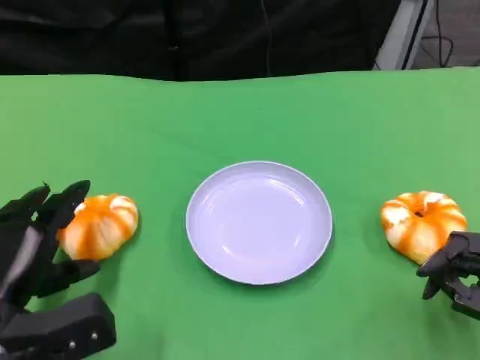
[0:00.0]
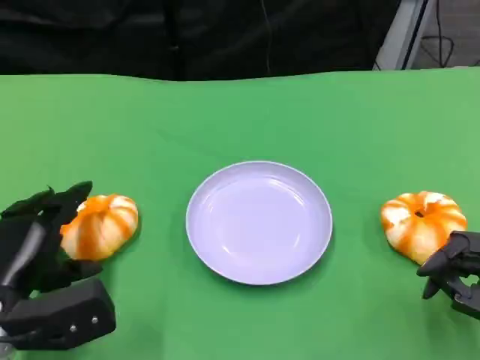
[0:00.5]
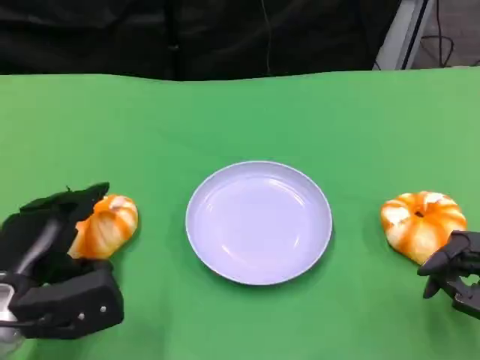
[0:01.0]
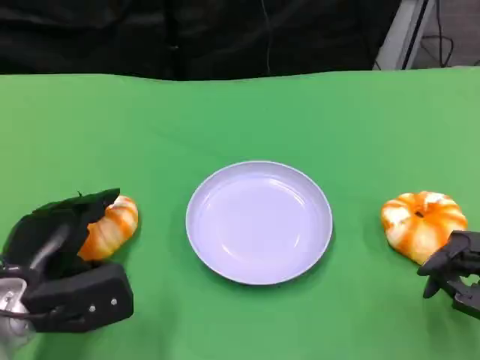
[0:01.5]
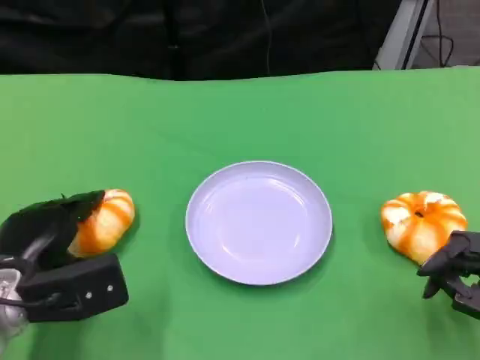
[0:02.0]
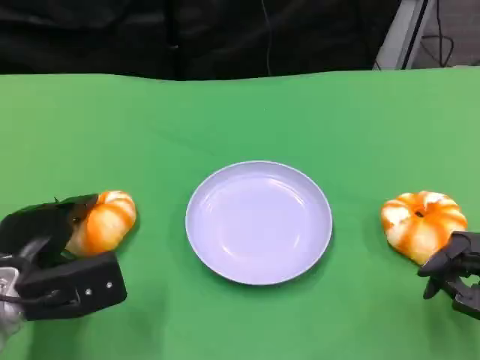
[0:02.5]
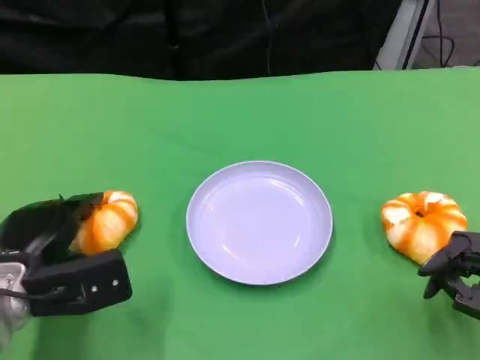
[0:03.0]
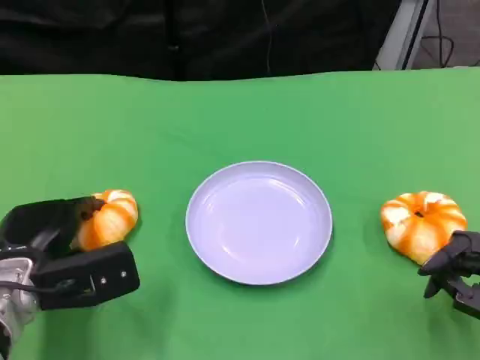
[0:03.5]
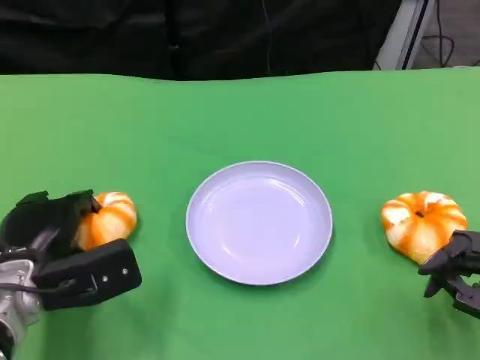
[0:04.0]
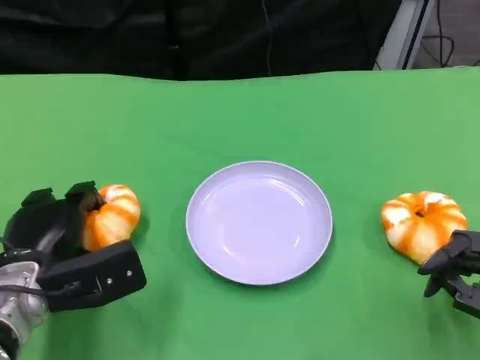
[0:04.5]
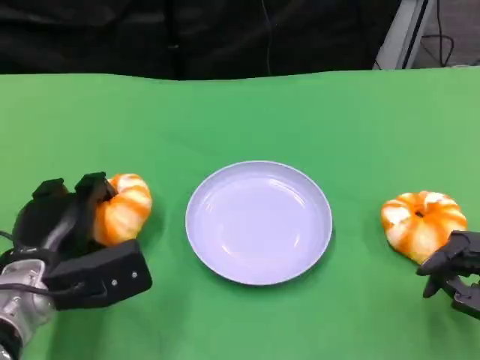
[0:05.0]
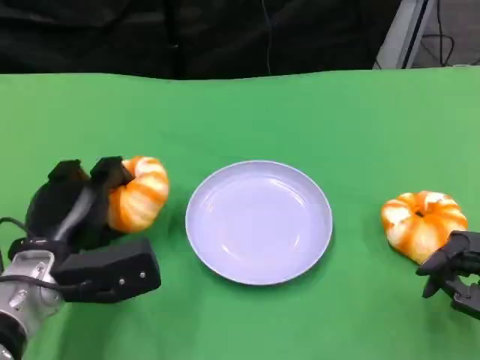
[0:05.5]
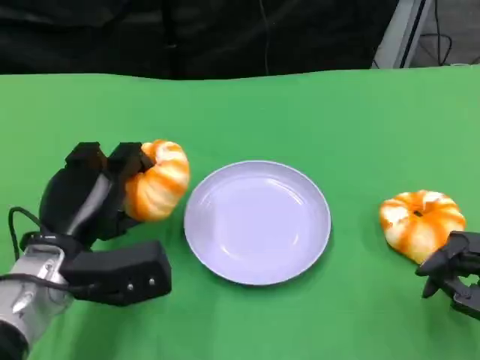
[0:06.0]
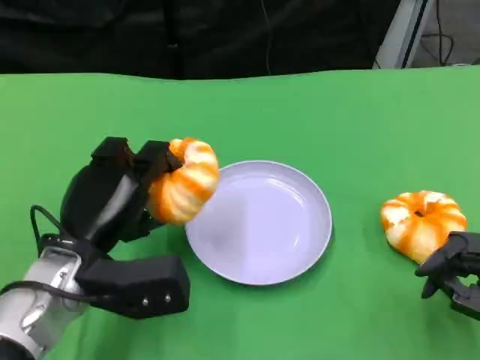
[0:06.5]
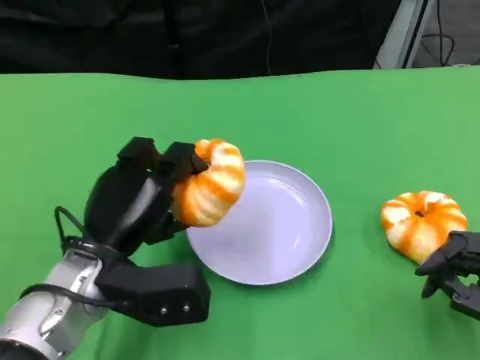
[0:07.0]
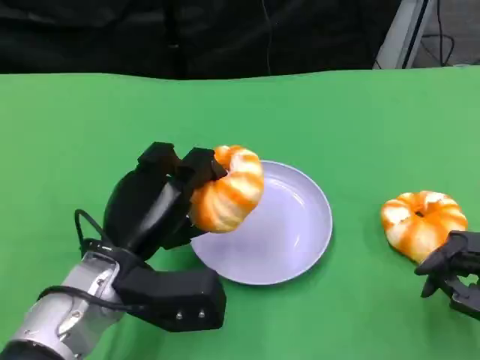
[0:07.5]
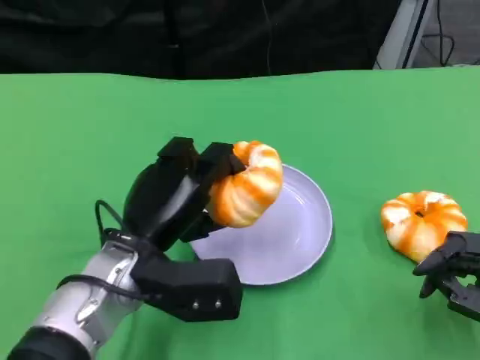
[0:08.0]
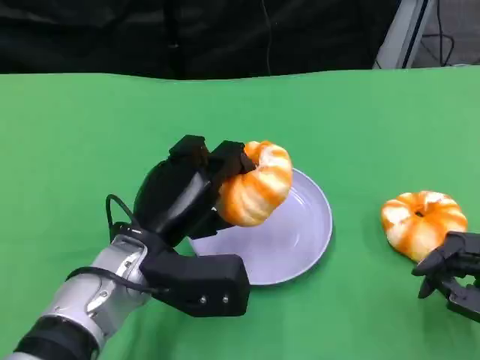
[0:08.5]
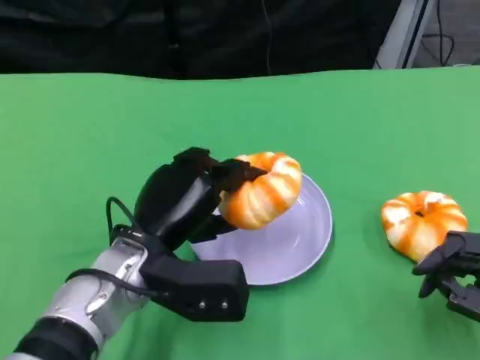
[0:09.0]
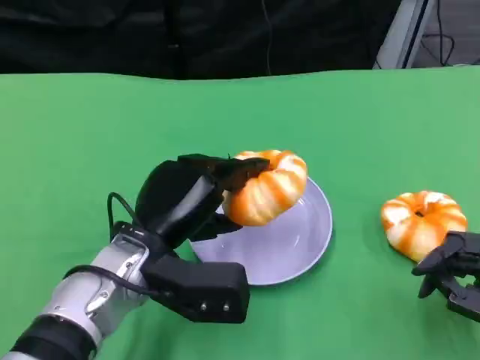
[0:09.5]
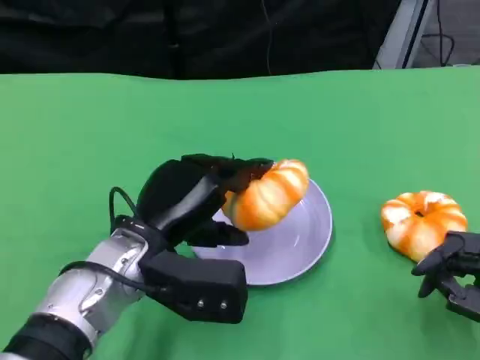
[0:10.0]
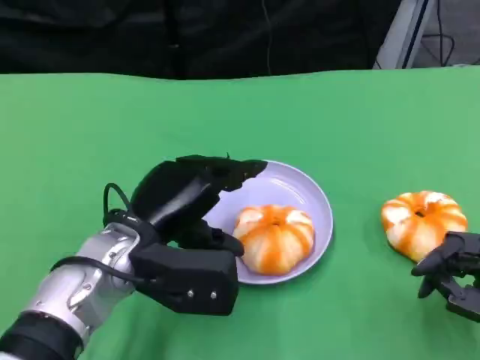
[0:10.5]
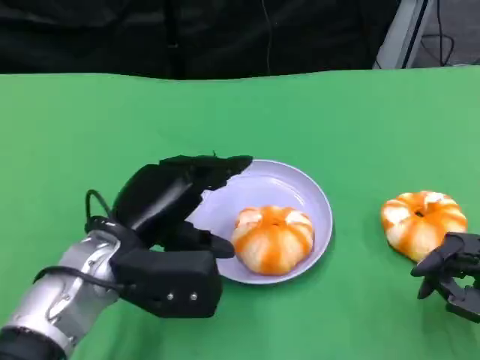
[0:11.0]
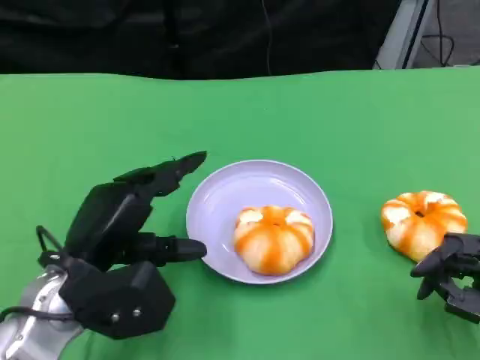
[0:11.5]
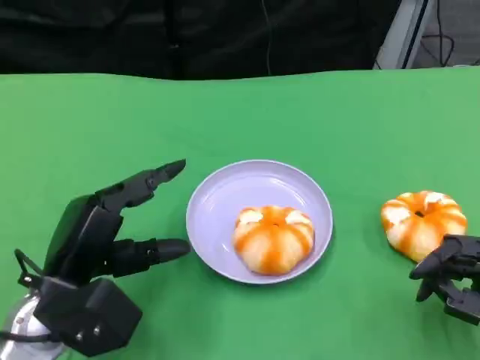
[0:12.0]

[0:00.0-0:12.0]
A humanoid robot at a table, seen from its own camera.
Task of the whole recording: Grasp the bread from the table and place it into the plate.
0:00.0 to 0:02.0: There are only small adjustments of the hands.
0:02.0 to 0:04.0: The hands stay close to where they were, moving slightly.
0:06.0 to 0:08.0: The left hand goes some 5 cm to the right.
0:08.0 to 0:10.0: The hands stay close to where they were, moving slightly.
0:10.0 to 0:12.0: The left hand shifts some 10 cm to the left.

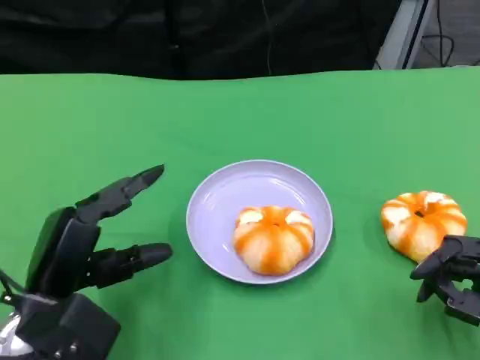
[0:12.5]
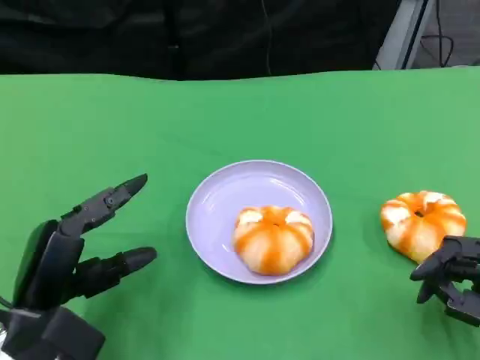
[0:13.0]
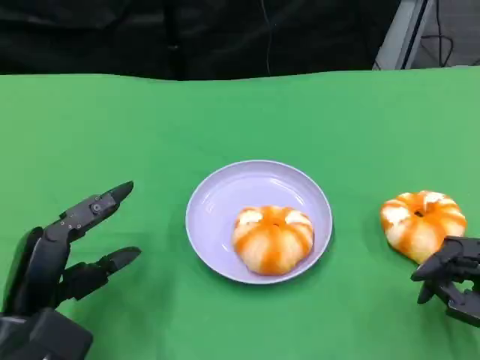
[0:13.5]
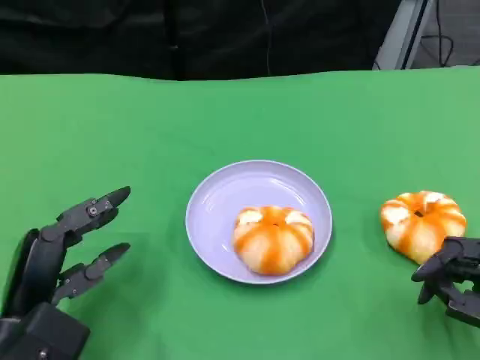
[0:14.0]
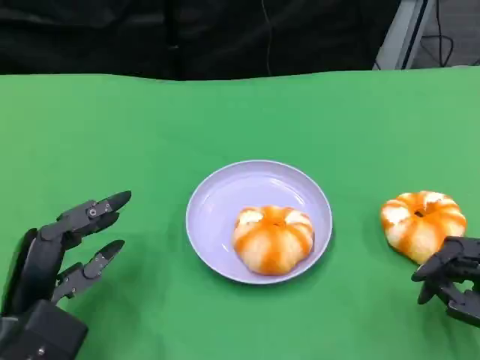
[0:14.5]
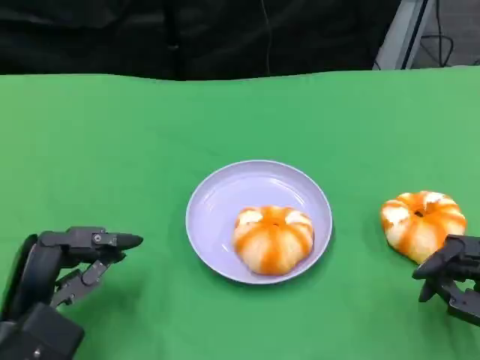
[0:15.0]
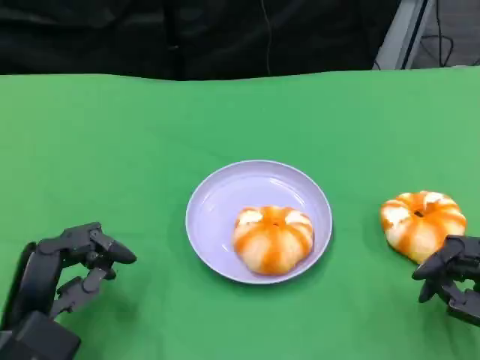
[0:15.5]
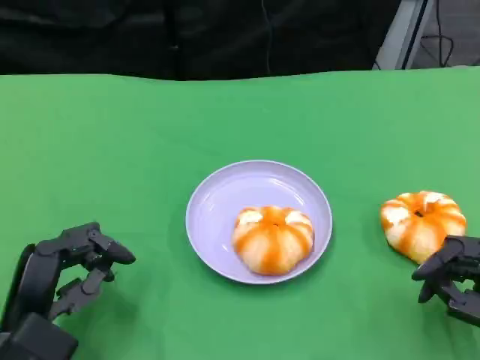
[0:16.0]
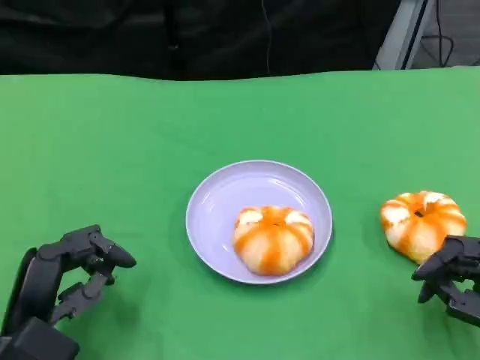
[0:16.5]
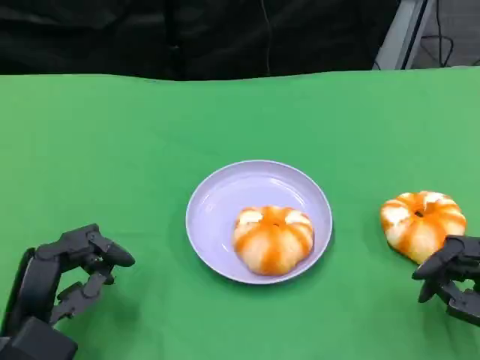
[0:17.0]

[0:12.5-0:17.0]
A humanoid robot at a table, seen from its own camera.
Task of the whole recording: Grasp the bread from the table and place it into the plate.
0:12.5 to 0:17.0: The hands move only a little.

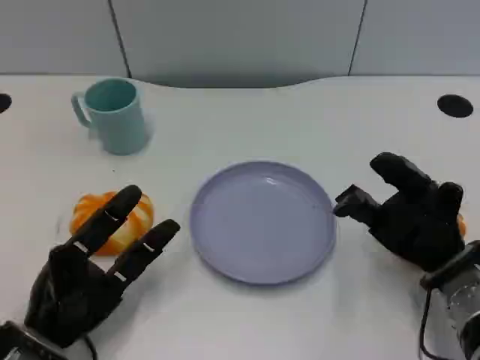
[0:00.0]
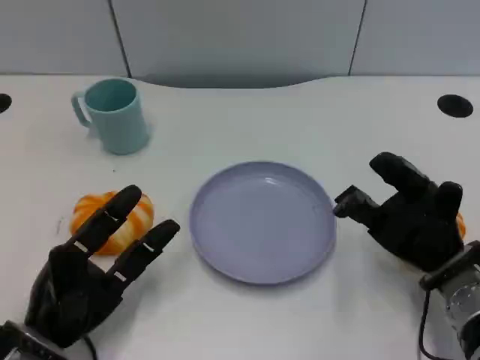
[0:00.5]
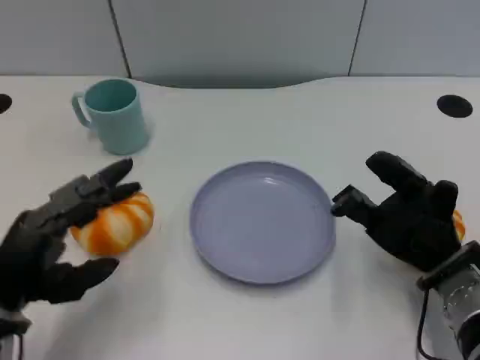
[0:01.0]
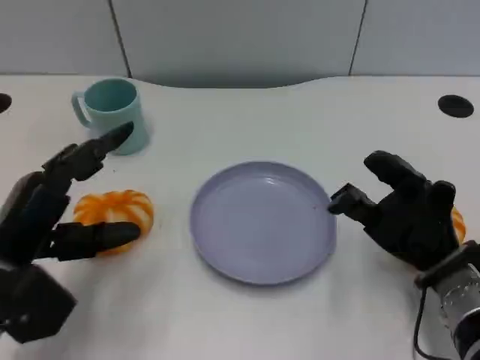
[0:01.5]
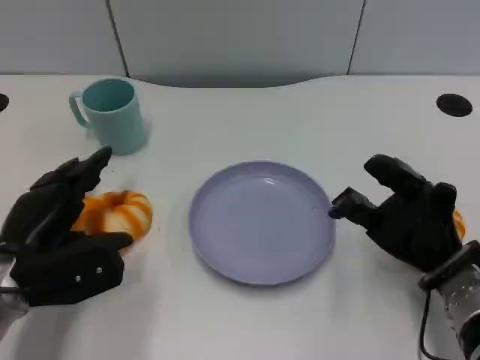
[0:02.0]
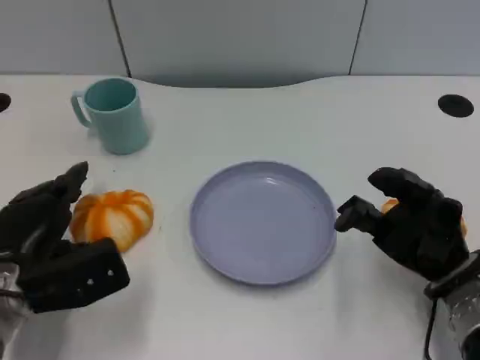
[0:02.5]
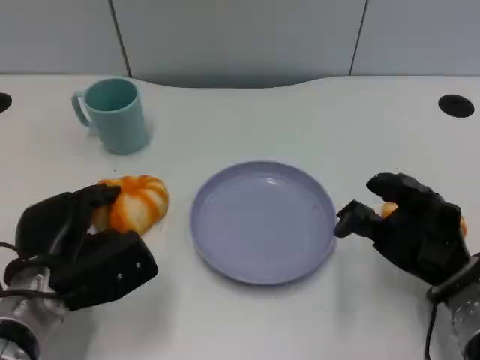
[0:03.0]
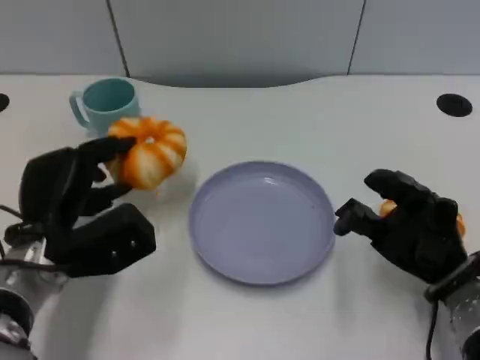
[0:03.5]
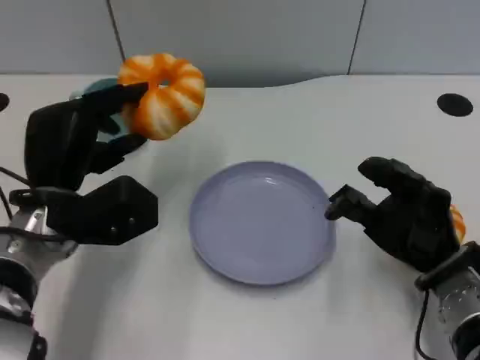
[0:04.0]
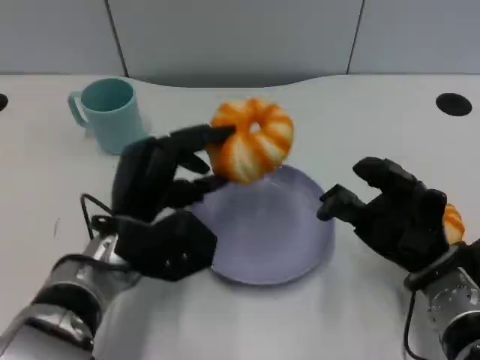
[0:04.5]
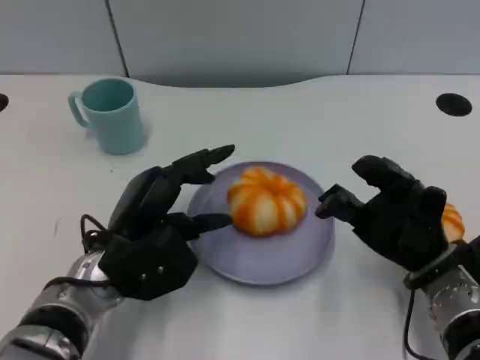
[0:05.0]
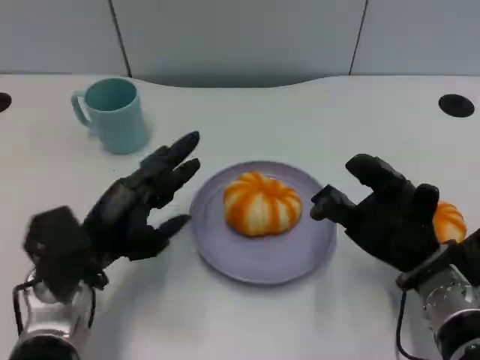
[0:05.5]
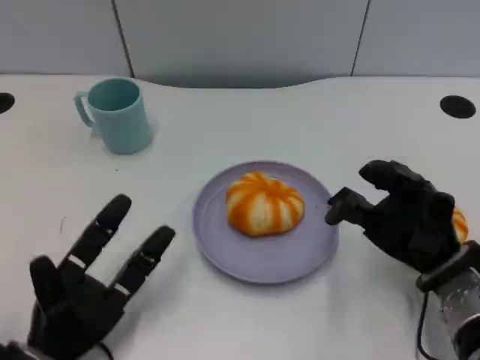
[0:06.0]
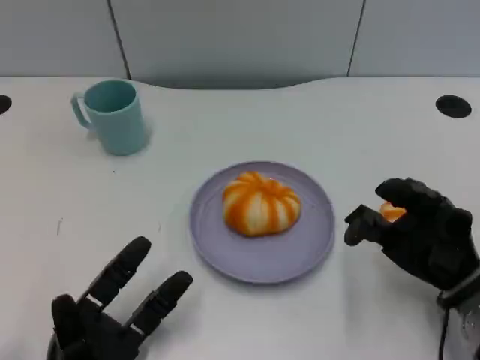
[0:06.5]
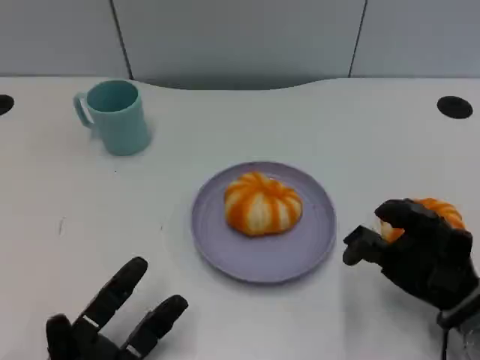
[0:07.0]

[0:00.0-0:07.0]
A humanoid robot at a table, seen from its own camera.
Task of the whole recording: Grasp the bread from the table and place it into the plate.
0:00.0 to 0:02.0: The left hand shifts about 5 cm forward.
0:03.5 to 0:05.0: The left hand travels to the right by roughly 5 cm.
0:05.0 to 0:07.0: The left hand travels backward, downward and to the left by some 15 cm. Meanwhile the right hand ends up some 5 cm from where it was.

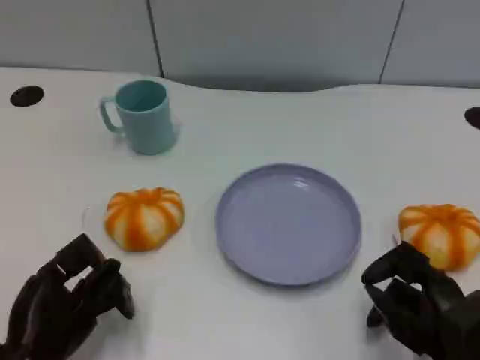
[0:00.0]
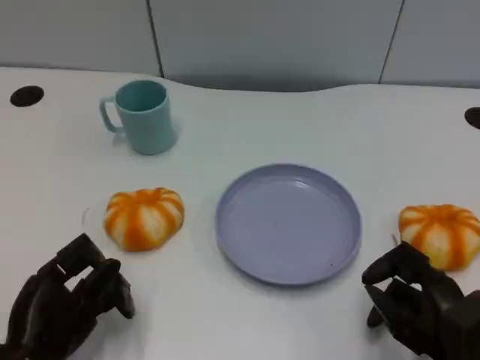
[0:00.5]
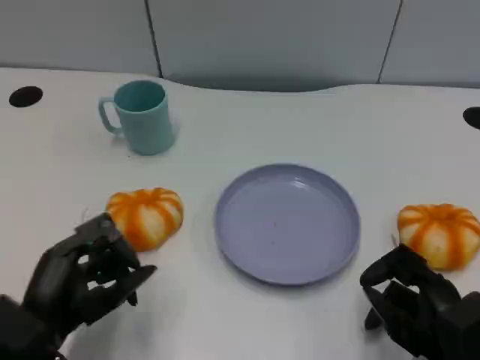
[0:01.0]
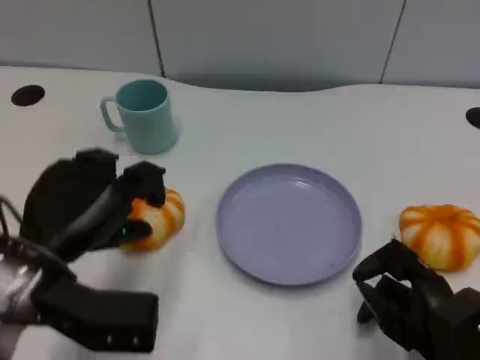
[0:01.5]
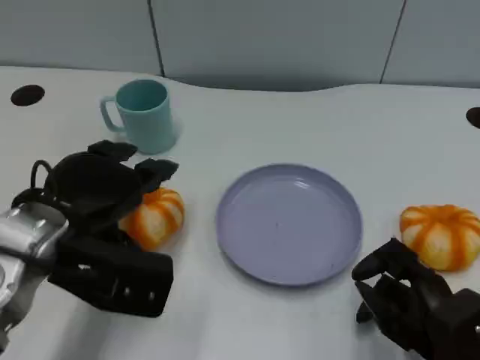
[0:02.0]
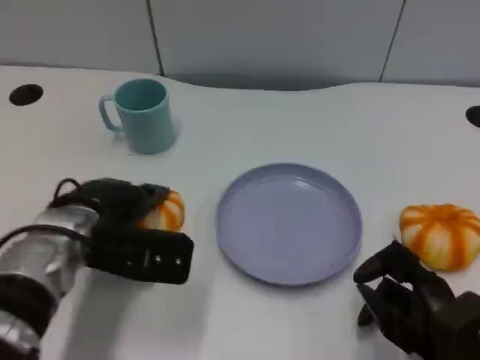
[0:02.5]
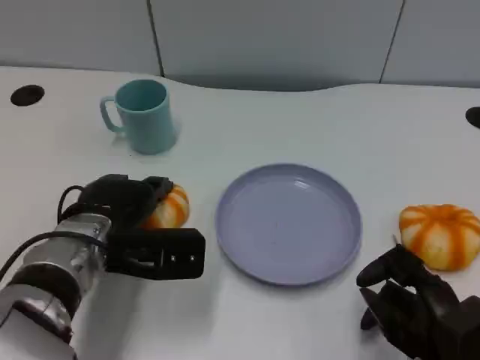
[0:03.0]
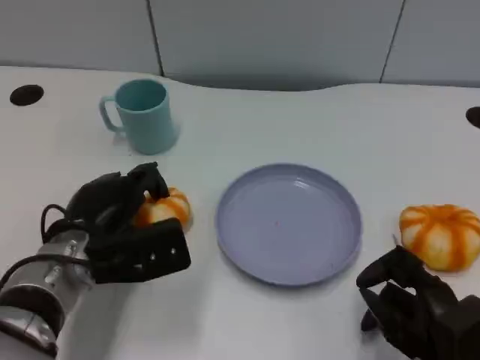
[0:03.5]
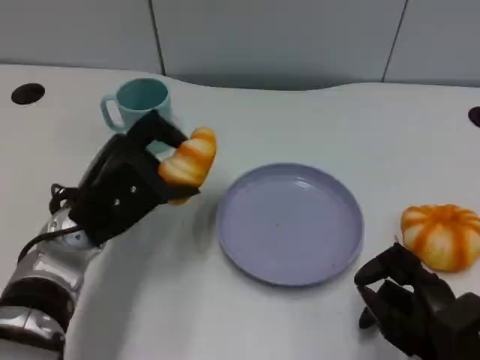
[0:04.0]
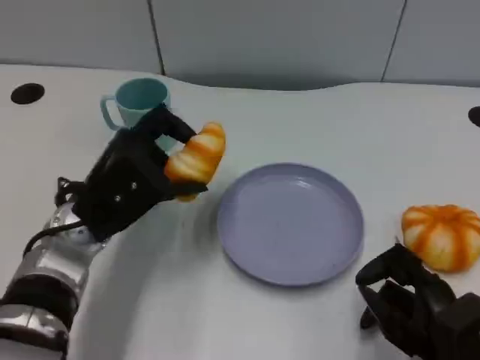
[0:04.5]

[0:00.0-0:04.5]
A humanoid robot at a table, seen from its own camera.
Task of the whole recording: Grasp the bread from the table and place it into the plate.
0:00.0 to 0:02.0: The left hand shifts some 15 cm upward and forward.
0:02.0 to 0:04.5: The left hand changes place by about 5 cm.
